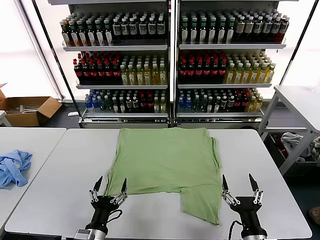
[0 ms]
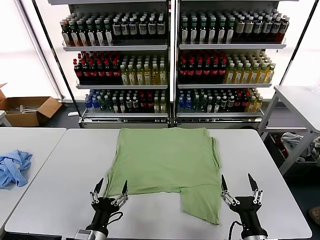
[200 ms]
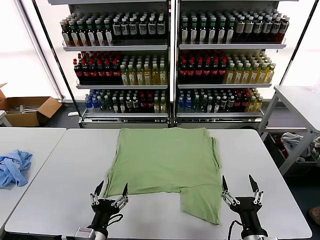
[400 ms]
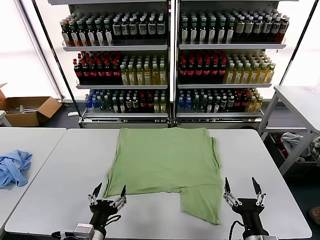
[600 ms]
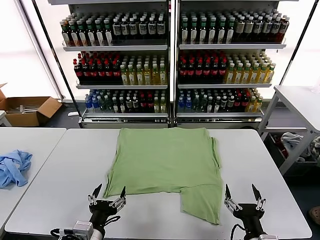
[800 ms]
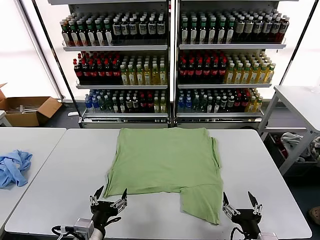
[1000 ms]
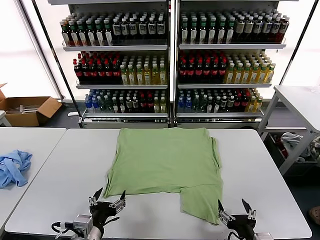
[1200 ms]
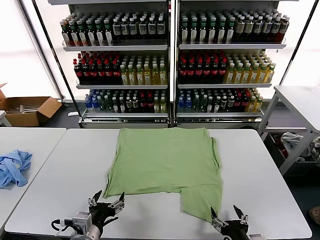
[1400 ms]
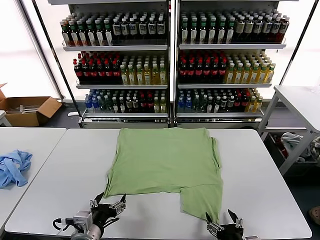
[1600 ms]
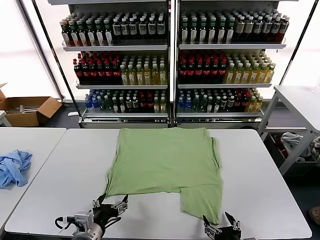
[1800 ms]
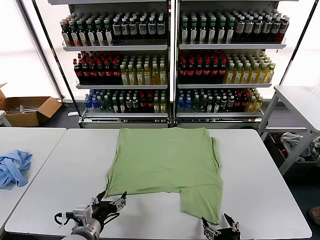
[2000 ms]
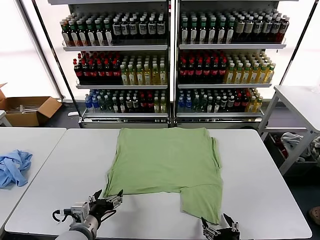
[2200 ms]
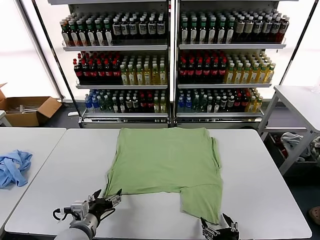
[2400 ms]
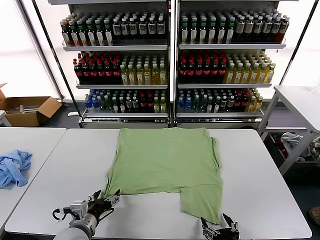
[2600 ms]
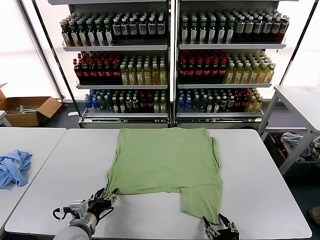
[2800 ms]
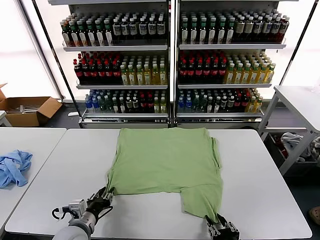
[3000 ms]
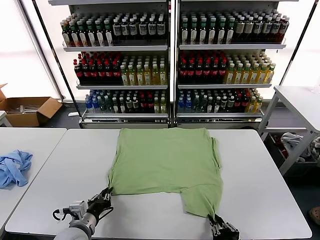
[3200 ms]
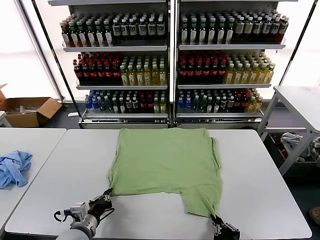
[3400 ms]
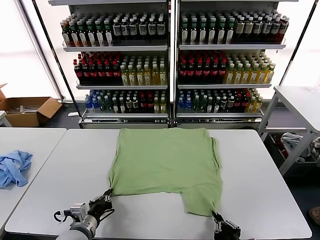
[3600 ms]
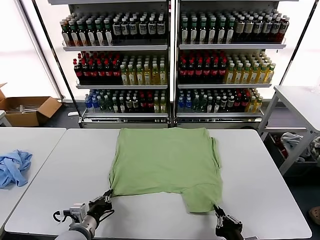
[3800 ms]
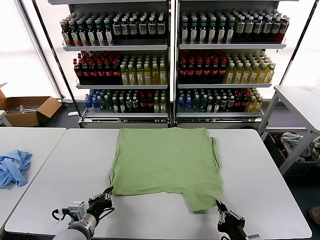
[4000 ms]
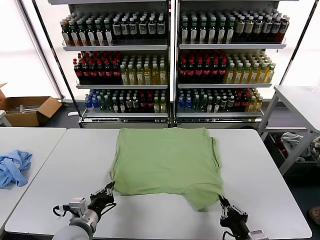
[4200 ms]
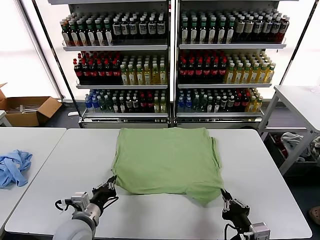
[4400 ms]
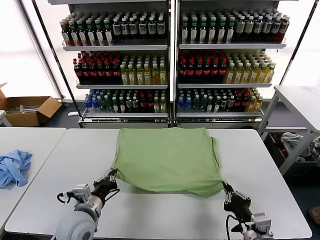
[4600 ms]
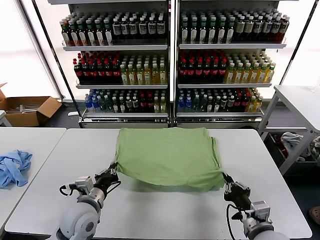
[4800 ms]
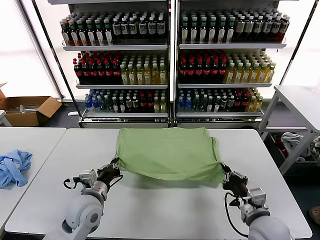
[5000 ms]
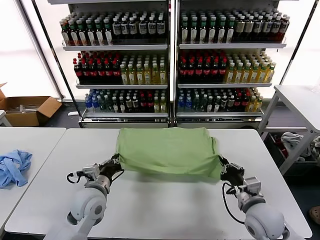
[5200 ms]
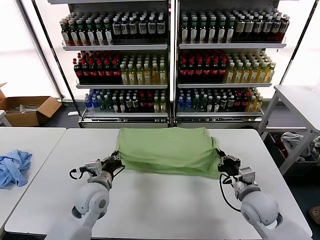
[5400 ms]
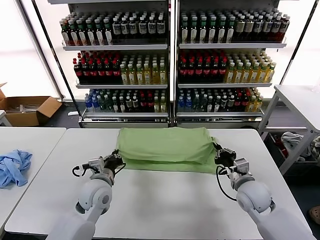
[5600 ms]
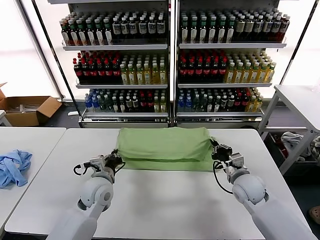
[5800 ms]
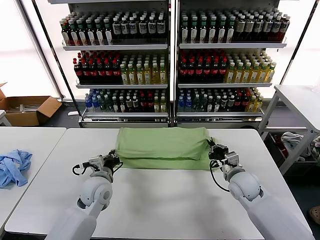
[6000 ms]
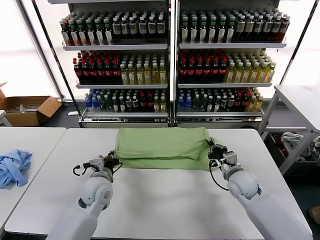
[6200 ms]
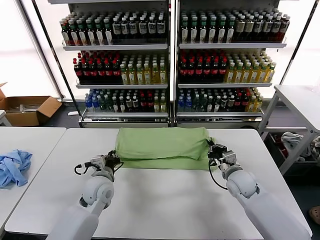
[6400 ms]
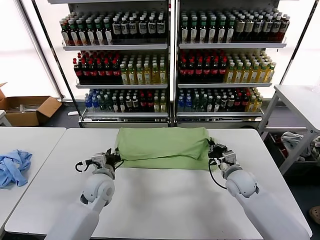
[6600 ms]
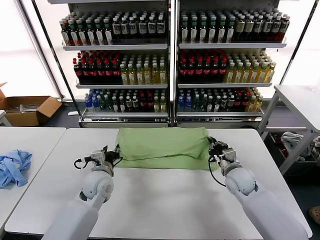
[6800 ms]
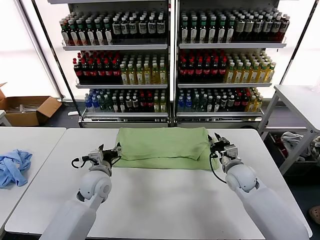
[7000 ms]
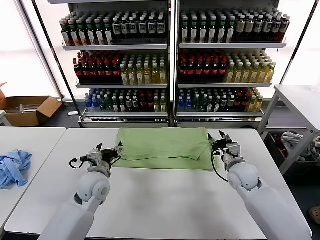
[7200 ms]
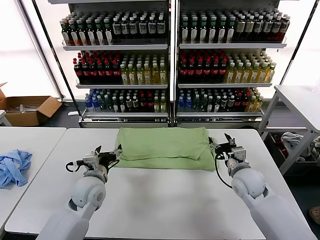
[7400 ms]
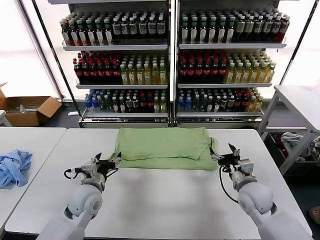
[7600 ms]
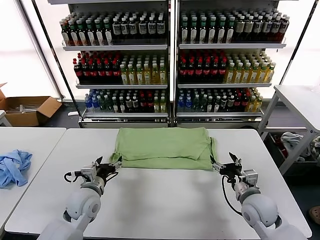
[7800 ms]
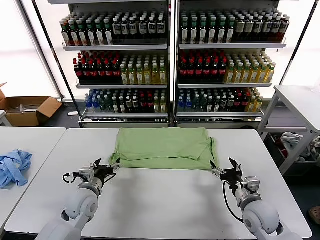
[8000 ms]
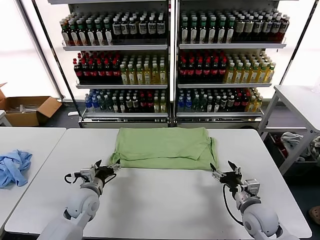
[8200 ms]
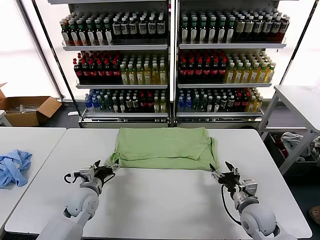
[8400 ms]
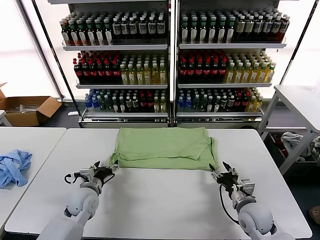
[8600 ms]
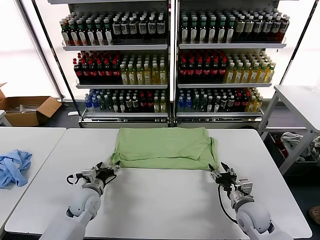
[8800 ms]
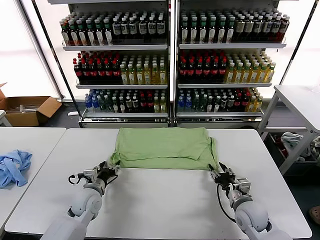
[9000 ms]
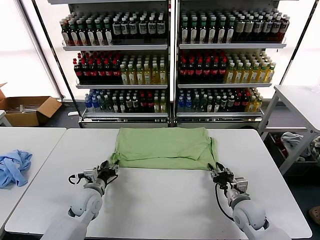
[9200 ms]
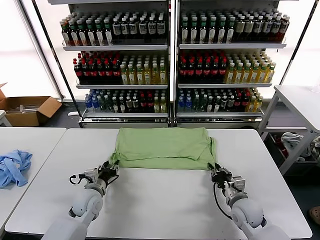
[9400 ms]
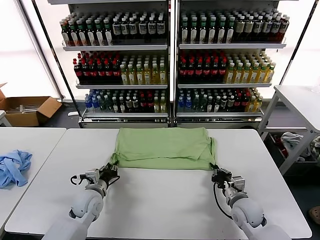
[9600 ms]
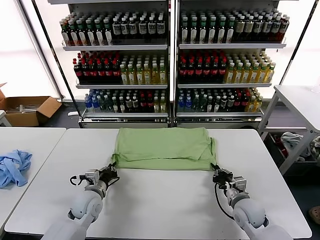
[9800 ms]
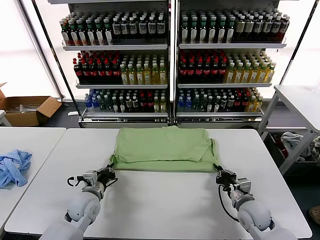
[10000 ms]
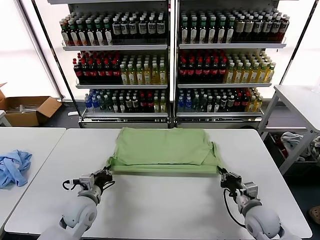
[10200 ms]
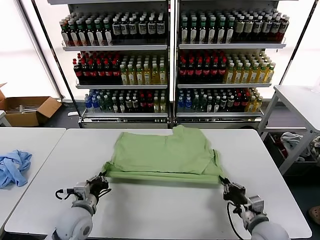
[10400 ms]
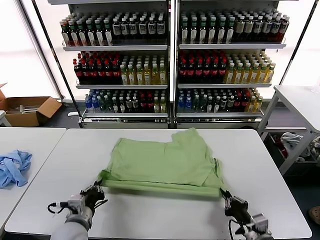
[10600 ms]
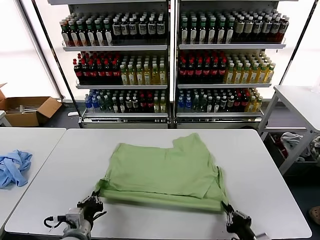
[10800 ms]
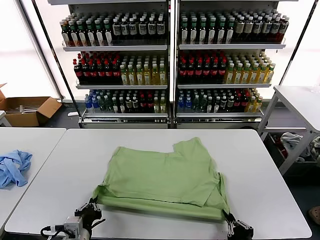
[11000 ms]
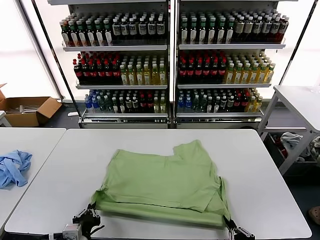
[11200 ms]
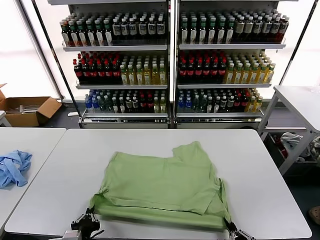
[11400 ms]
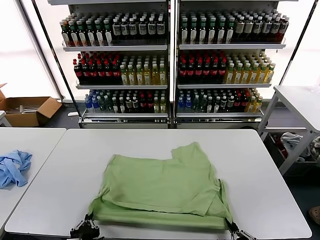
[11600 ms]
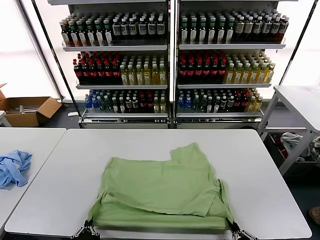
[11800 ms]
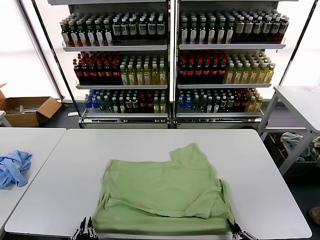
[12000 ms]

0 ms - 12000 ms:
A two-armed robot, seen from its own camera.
Task of the whole recording: fold and organize the clothes.
Step, 0 ms - 3400 ms: use both grippers simultaneously to clamp the lower edge of the clothing fabric.
Step, 3600 ms - 6800 ms: use both grippers to drag the lower edge of the fabric forward and fold it over the upper edge.
1600 ms - 3000 ms: The left gripper shifts by approximately 10 cm, and closes up, while the right gripper closes.
3000 ms - 4400 ms: The left gripper closes its fingers. Meanwhile the right gripper heads forward, covering approximately 5 cm.
4400 ms - 6000 ms: The left gripper moves forward, about 15 cm. The right gripper heads forward, covering some 25 cm.
6000 ms - 7600 ms: The left gripper opens. Meanwhile the right gripper moves backward, roughly 10 cm, and opens.
7600 ms - 9000 ms: Both grippers move downward, some 5 cm. The right gripper closes up.
9000 ms - 10400 ms: Both grippers travel together backward, approximately 10 cm. The left gripper closes up. Meanwhile the right gripper closes up.
10400 ms - 12000 ms: The two grippers go about 15 cm backward.

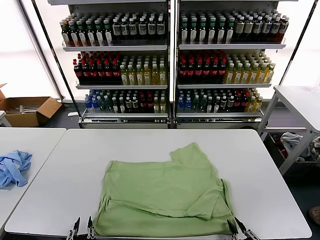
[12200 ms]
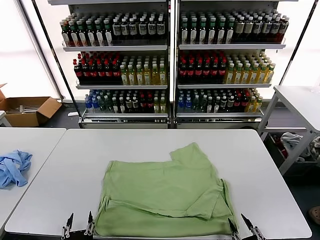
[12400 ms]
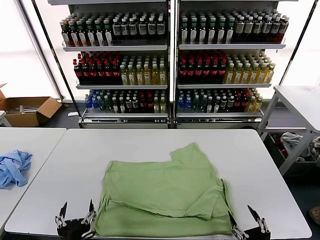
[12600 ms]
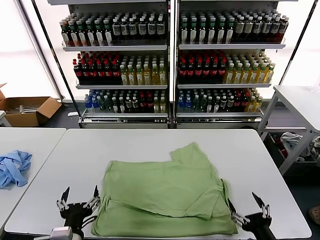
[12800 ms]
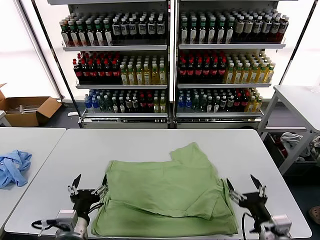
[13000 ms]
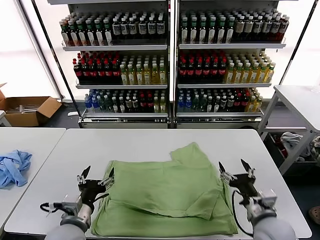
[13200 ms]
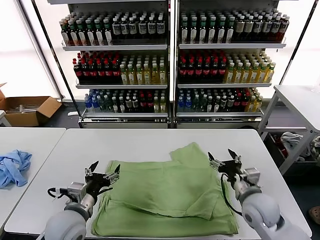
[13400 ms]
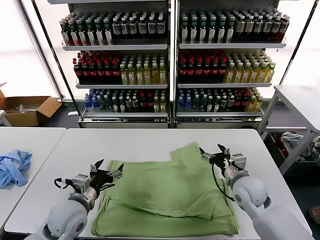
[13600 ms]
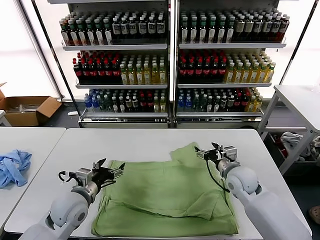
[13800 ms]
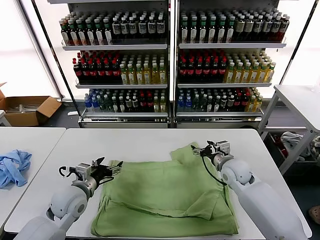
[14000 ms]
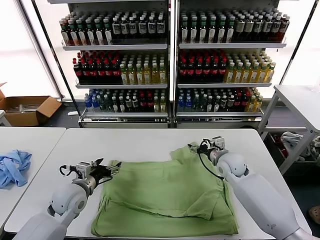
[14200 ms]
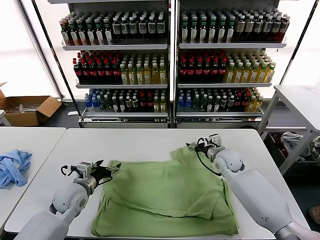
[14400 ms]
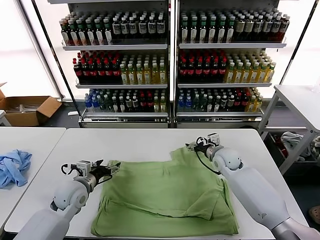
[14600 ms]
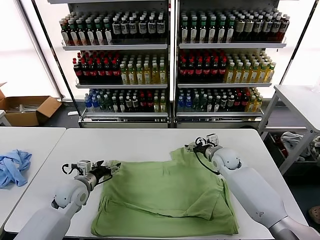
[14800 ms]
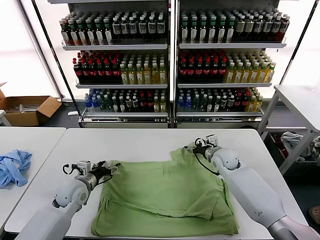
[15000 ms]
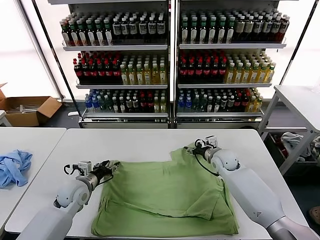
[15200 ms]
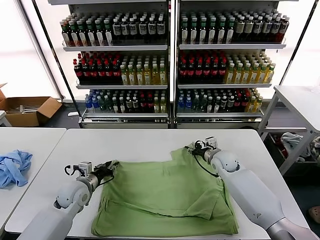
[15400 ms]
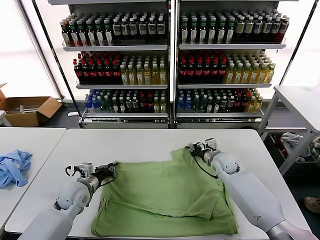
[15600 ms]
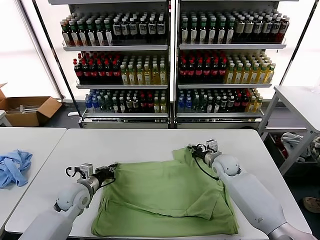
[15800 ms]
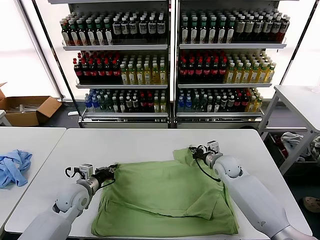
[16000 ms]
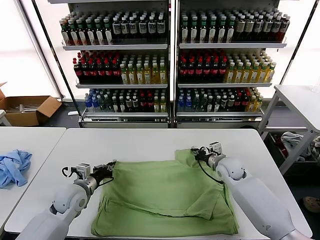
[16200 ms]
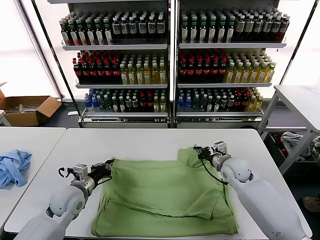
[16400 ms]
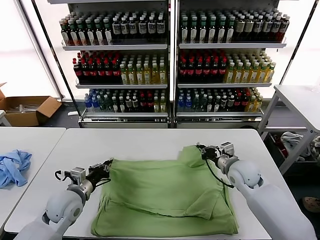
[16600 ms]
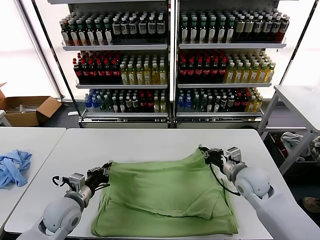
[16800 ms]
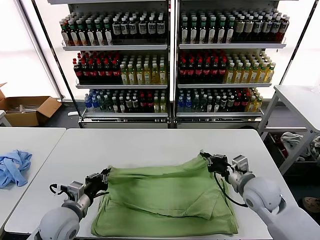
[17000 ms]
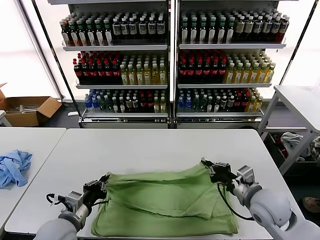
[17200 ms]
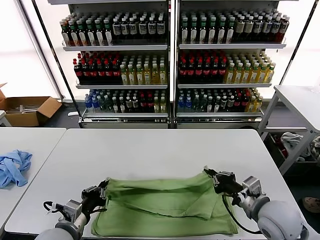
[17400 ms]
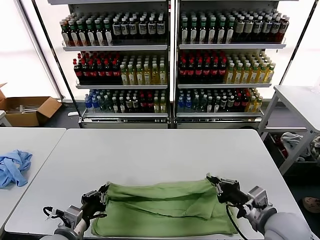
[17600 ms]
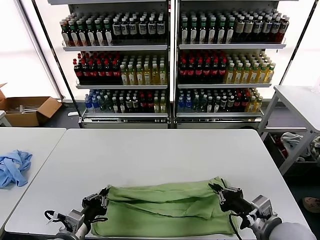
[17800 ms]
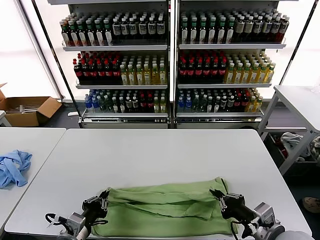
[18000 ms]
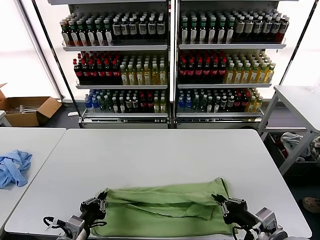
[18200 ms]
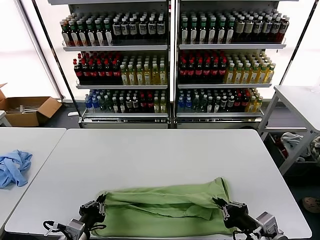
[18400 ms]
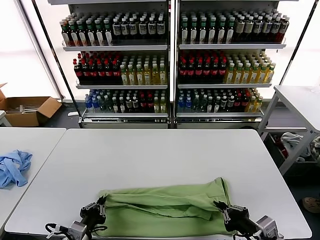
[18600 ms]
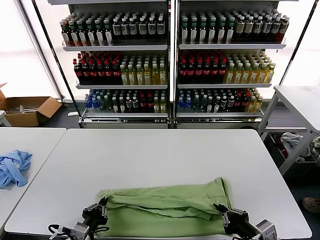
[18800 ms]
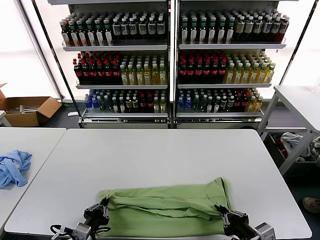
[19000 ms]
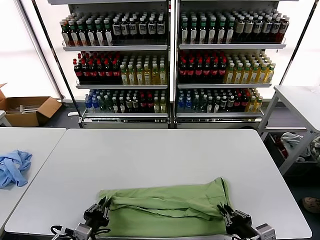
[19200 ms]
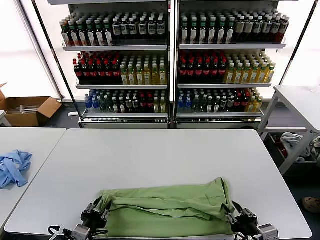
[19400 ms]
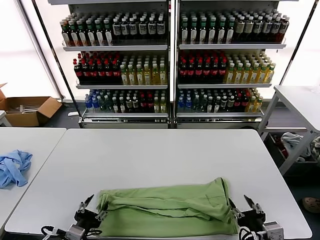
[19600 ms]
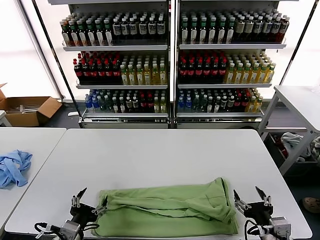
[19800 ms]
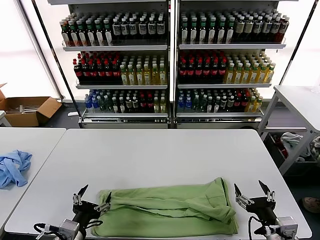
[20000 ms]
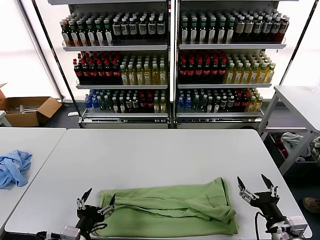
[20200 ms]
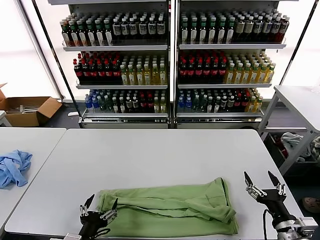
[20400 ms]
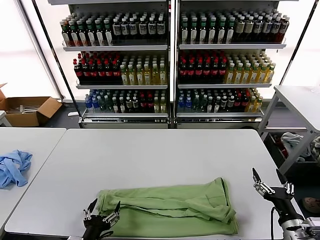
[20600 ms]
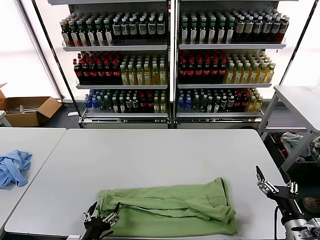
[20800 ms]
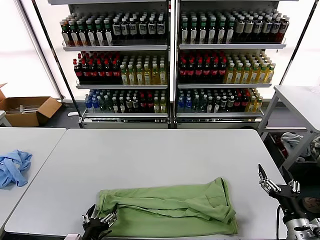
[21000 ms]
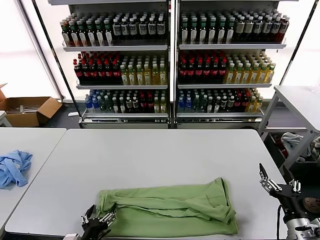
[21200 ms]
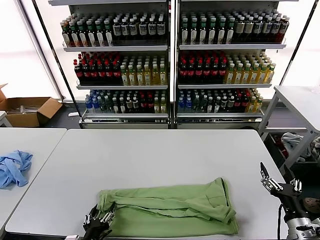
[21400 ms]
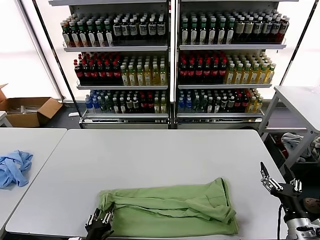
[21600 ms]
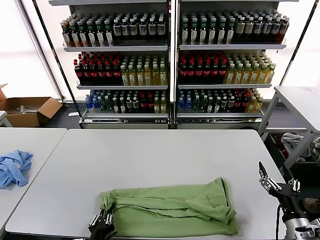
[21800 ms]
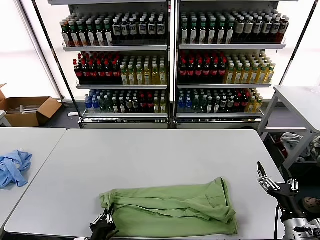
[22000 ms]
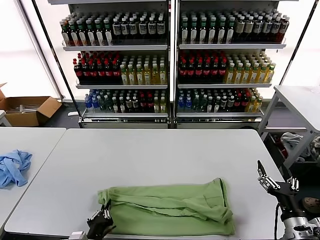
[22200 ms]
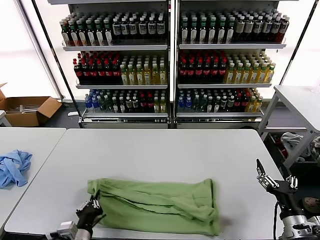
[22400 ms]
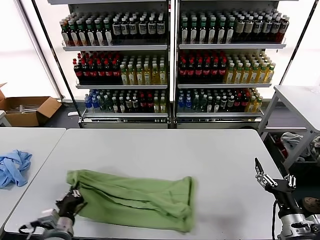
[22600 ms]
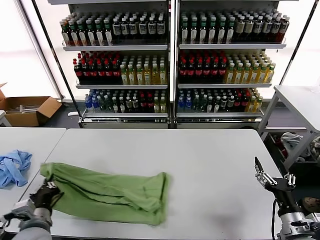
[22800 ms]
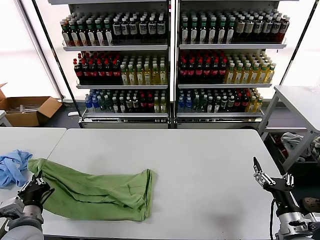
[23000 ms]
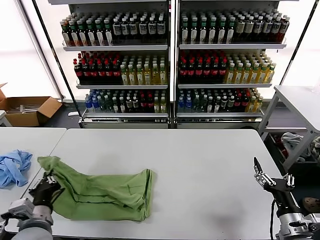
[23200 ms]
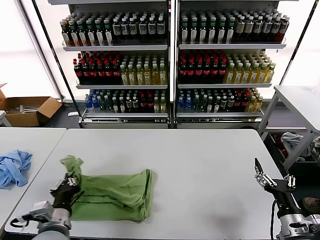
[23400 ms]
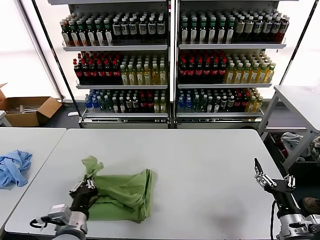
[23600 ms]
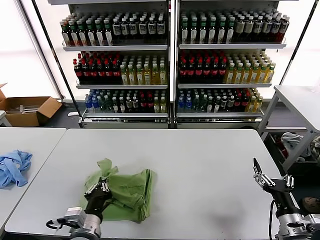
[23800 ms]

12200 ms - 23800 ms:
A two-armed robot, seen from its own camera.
Task of the whole recording: fold and organize the clothes.
Step, 12400 ms - 15800 ms: use both grippers simultaneously to clamp the upper edge of the clothing fabric.
Step, 16000 ms - 19400 ms: use both grippers to drag the upper edge of the fabric backward and fold it over the lower edge.
Step, 19600 ms - 22000 ms: use the left gripper to clamp the left edge of the fabric.
12200 ms - 13600 ms: The left gripper is displaced forward by approximately 20 cm, and opens. The right gripper heads forward, covering some 30 cm, and opens.
13600 ms - 15000 ms: The left gripper goes approximately 10 cm forward and downward. The right gripper goes some 15 cm forward.
15000 ms - 16600 ms: The left gripper is displaced backward by roughly 5 cm, and closes its fingers; the right gripper is displaced backward by some 10 cm, and closes its fingers.
16600 ms - 18000 ms: The right gripper is displaced backward by roughly 25 cm; the left gripper moves backward, about 15 cm.
18000 ms - 19400 ms: The left gripper opens its fingers. Meanwhile the right gripper moves downward, approximately 5 cm, and opens.
19400 ms - 21000 ms: The right gripper moves to the right, about 10 cm, and opens its fingers, while the left gripper opens up.
21000 ms - 22400 ms: The left gripper closes its fingers.
22400 ms - 23800 ms: The left gripper heads upward, covering about 5 cm, and goes to the left and returns, some 10 cm each way.
